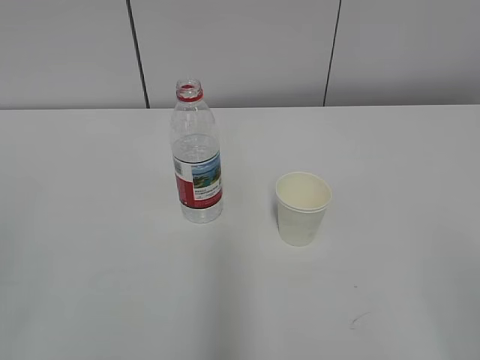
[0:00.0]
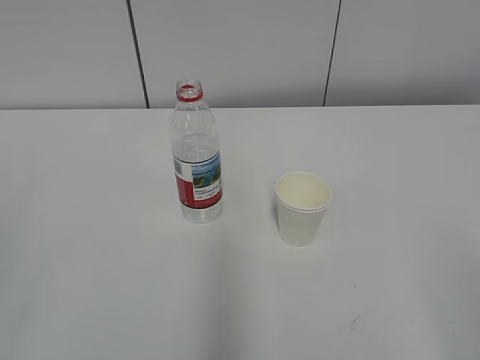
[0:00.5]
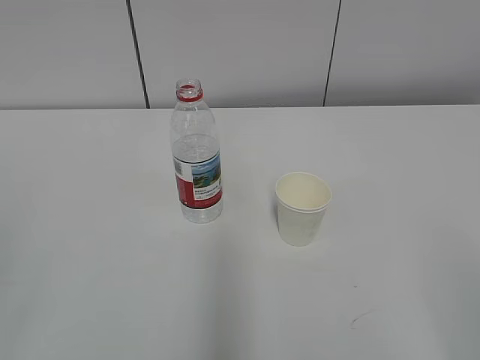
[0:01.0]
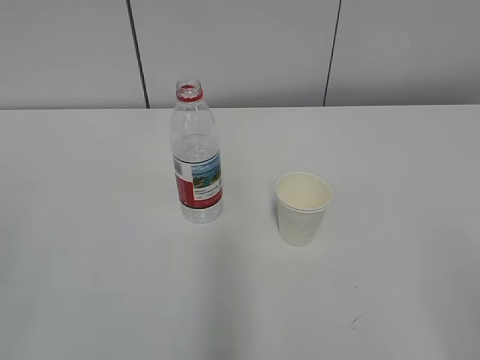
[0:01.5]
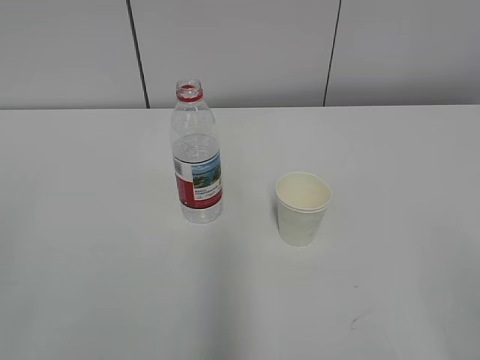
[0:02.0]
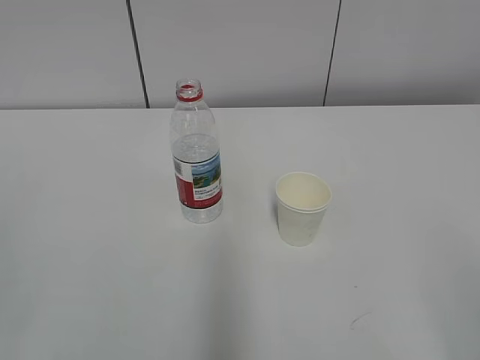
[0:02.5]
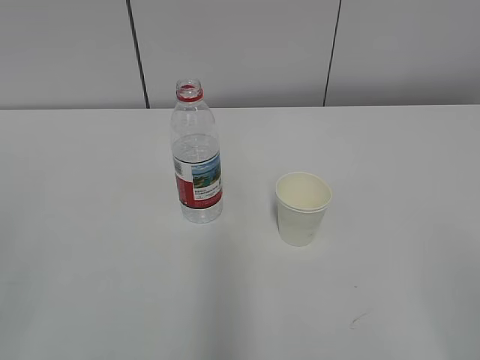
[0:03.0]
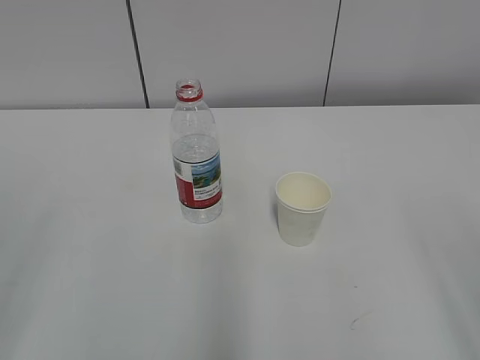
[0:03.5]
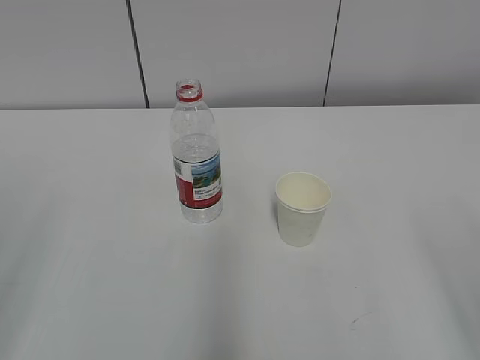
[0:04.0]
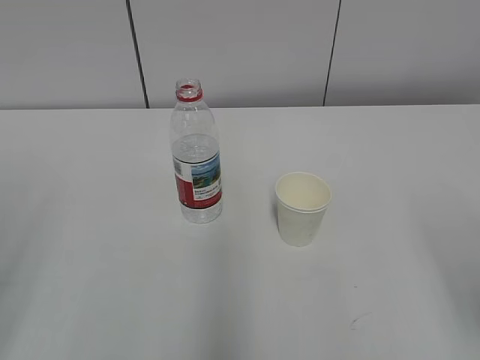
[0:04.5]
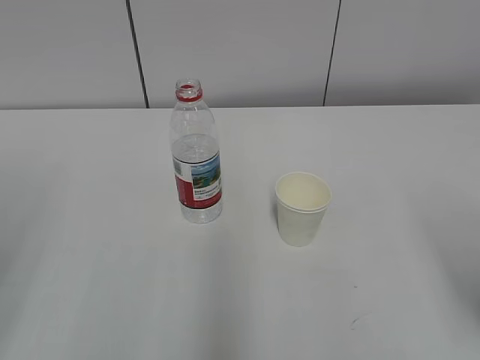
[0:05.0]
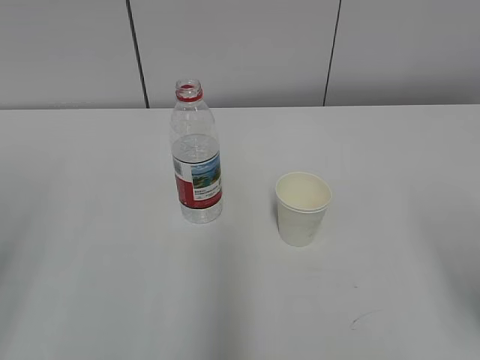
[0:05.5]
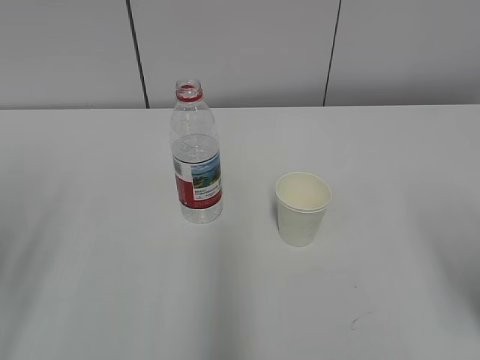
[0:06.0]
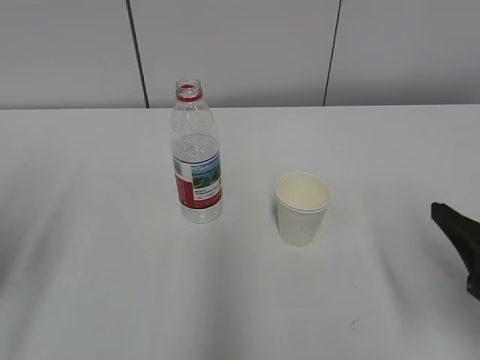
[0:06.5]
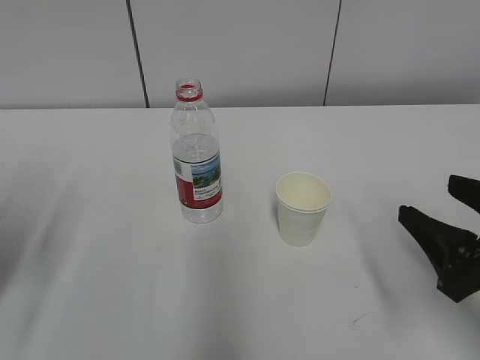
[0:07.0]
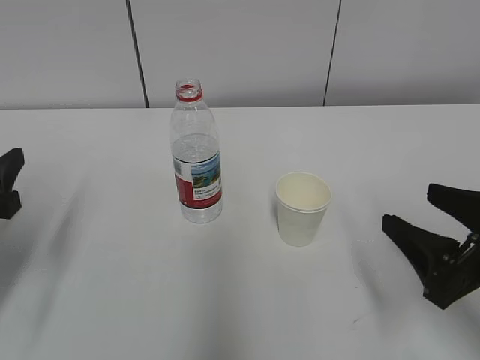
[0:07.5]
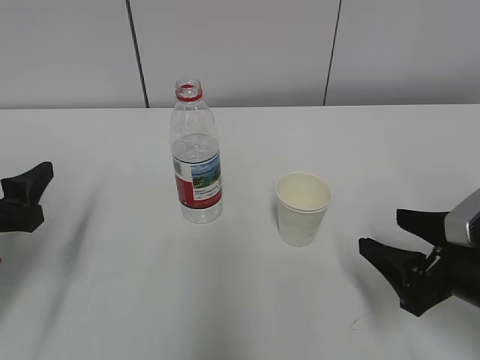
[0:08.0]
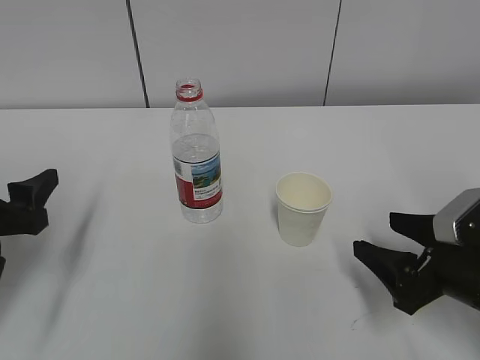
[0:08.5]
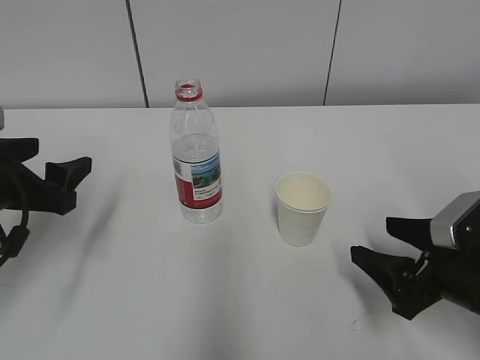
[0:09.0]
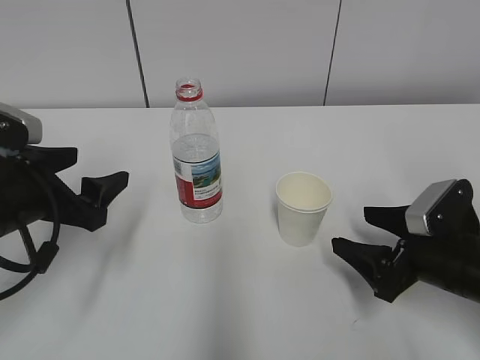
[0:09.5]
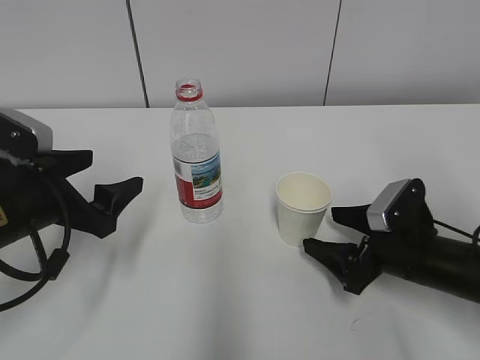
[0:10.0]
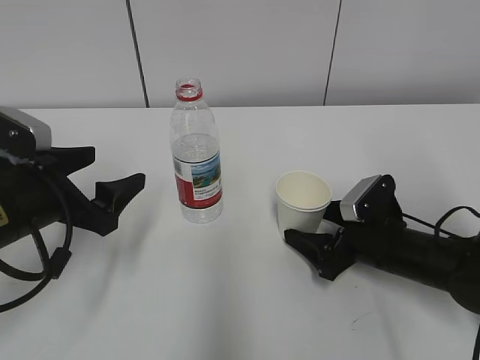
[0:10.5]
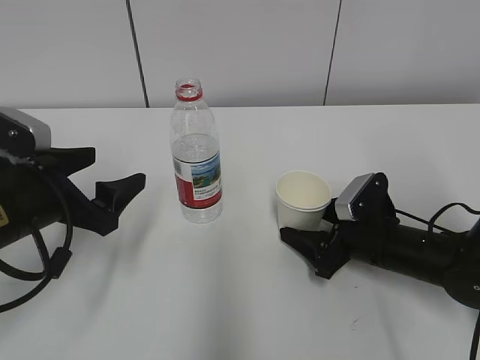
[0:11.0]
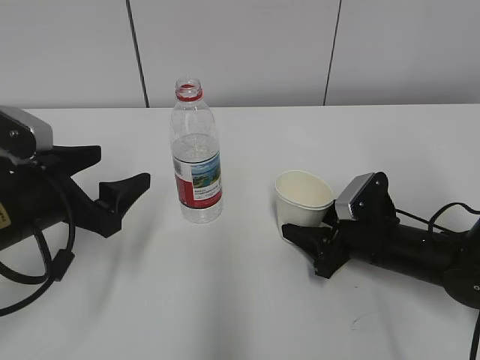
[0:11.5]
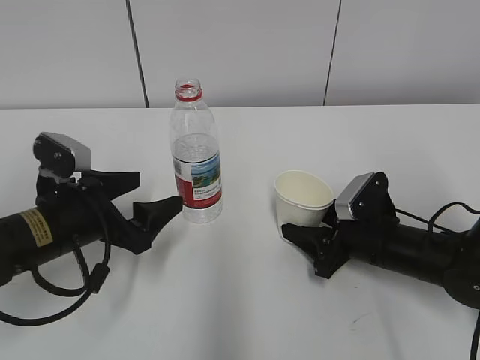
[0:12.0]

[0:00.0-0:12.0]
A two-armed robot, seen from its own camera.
Step, 0:00.0 to 0:11.5: Grab the paper cup with the right hand.
0:06.0 to 0:08.0: The grippers both shift downward and forward by about 10 cm.
0:08.0 to 0:10.0: The right gripper shifts approximately 10 cm forward and downward; the left gripper heads to the right, covering roughly 5 cm.
0:10.0 to 0:12.0: The right gripper closes its fingers.

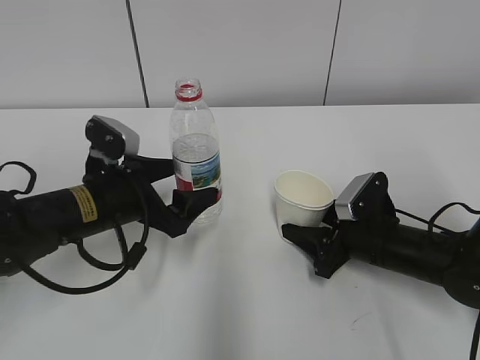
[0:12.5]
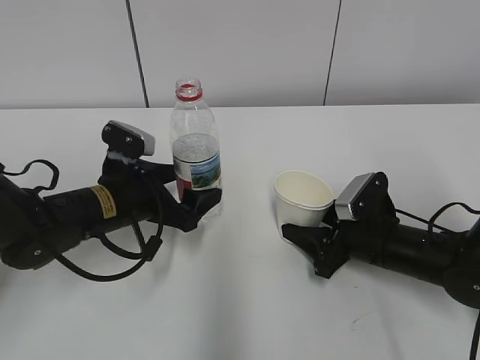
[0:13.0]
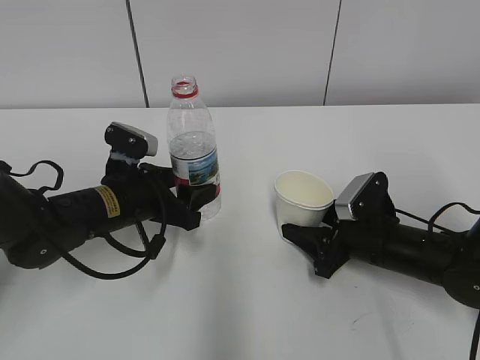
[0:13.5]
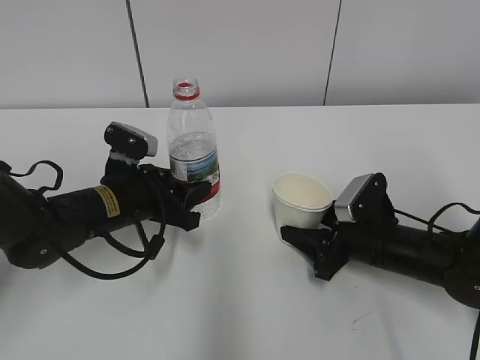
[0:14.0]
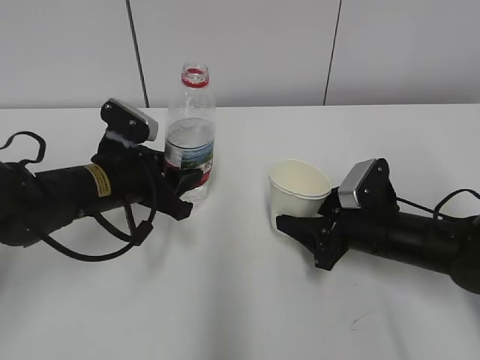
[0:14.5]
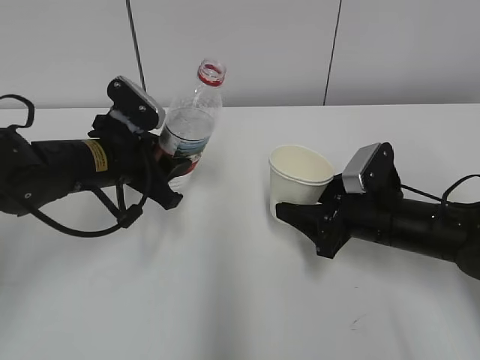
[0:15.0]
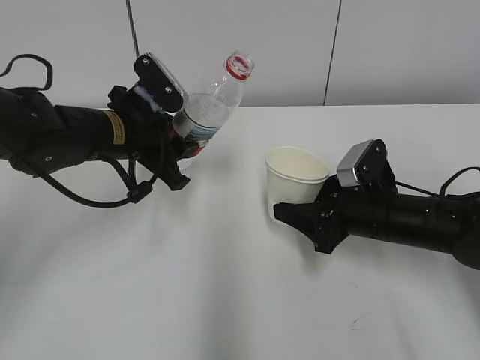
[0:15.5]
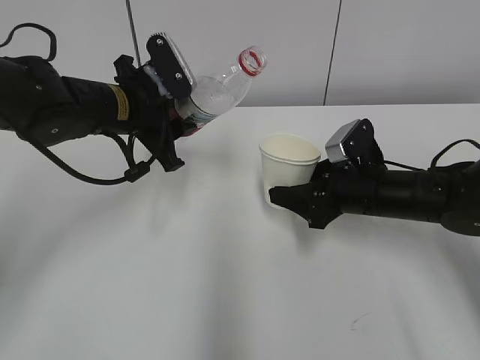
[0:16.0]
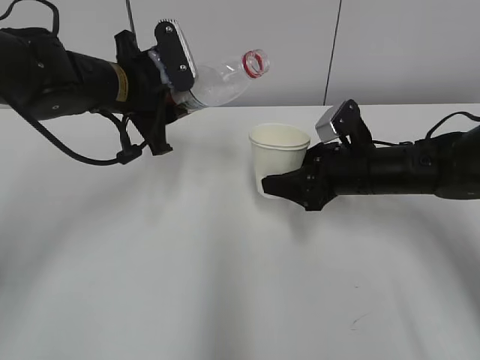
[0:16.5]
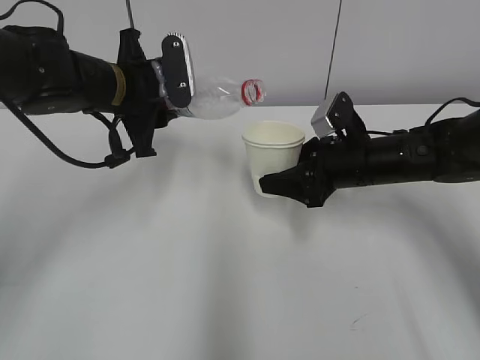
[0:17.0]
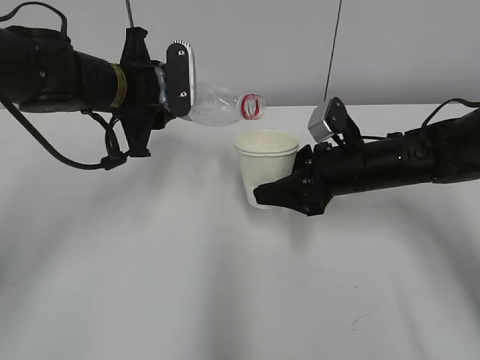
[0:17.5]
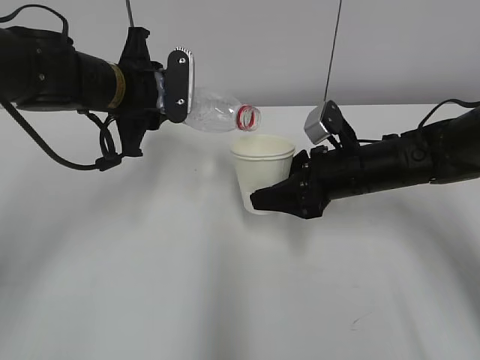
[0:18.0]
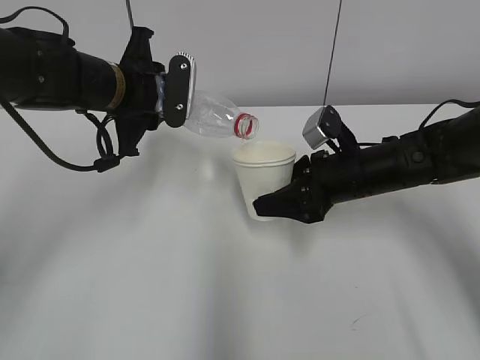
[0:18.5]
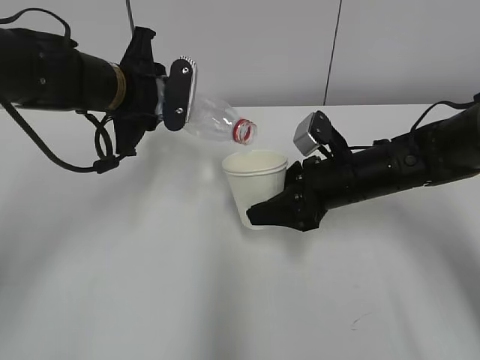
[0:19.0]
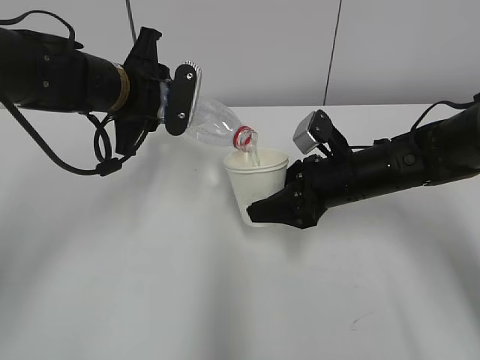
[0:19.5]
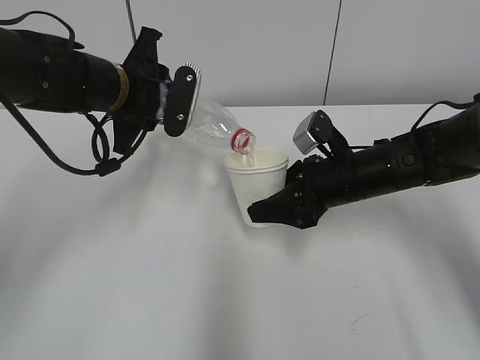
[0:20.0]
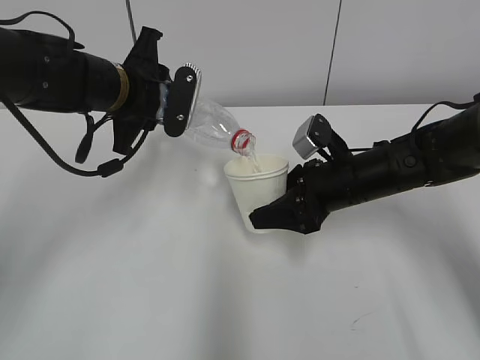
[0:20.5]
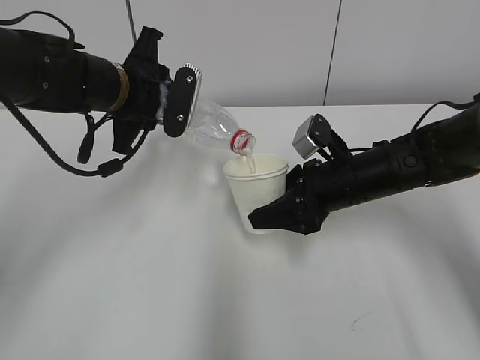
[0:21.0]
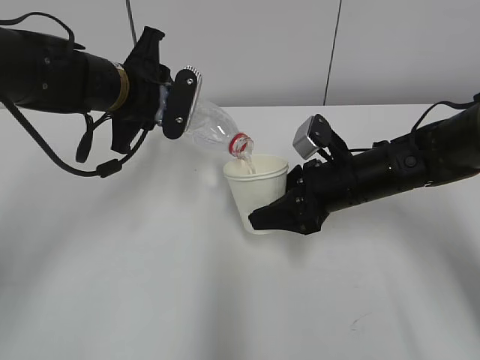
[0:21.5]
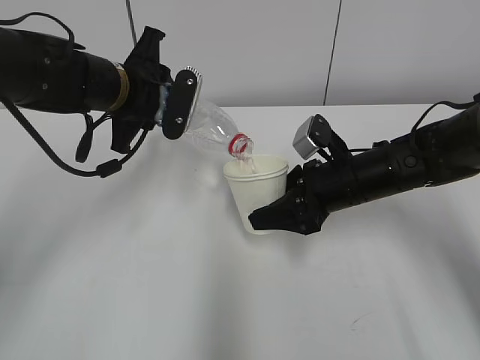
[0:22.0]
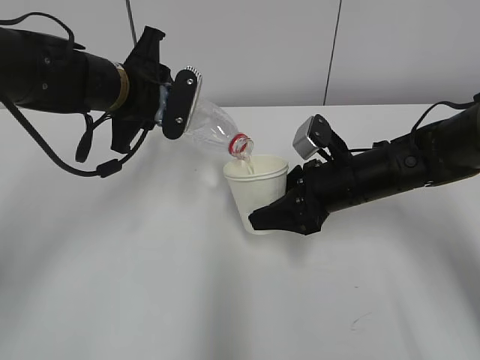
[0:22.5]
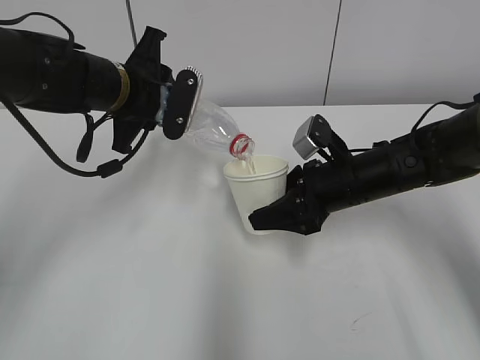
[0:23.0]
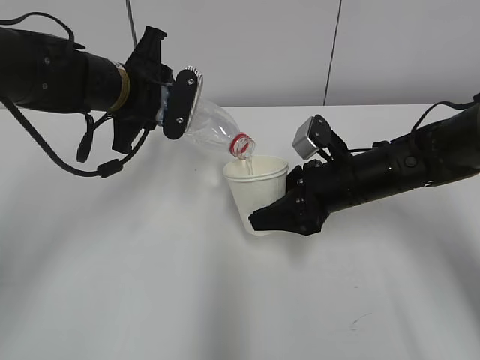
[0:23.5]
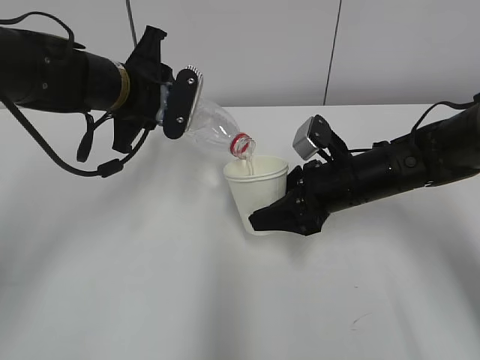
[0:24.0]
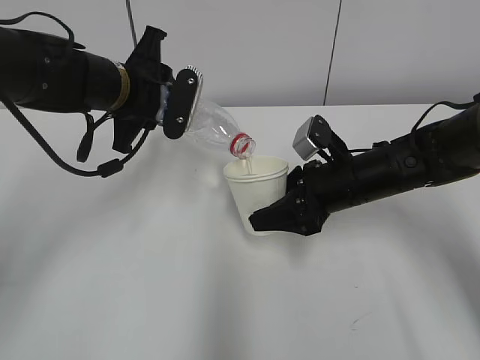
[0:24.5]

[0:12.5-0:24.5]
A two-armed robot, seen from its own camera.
Step, 0:12.5 to 0:15.5: Lift the paper cup with the right hand.
Step, 0:16.0 to 0:23.0: Fill water with the right hand.
Step, 0:16.0 to 0:23.0: Pour water with the left hand.
0:12.5 to 0:14.5: The left gripper closes its fingers.
0:14.5 to 0:16.5: The left gripper travels upward and forward by about 10 cm, while the right gripper is displaced forward and upward by roughly 10 cm.
0:18.5 to 0:20.5: The grippers stay close to where they were, moving slightly.
0:20.5 to 0:24.5: Both grippers stay put.

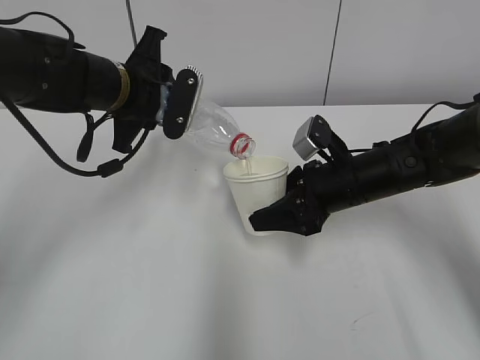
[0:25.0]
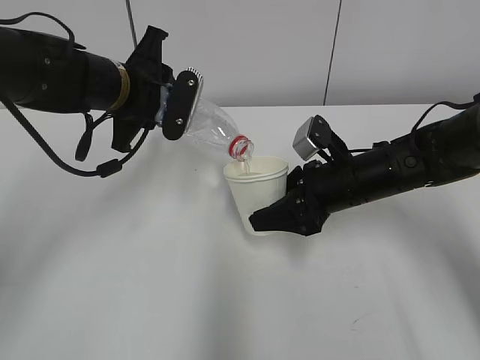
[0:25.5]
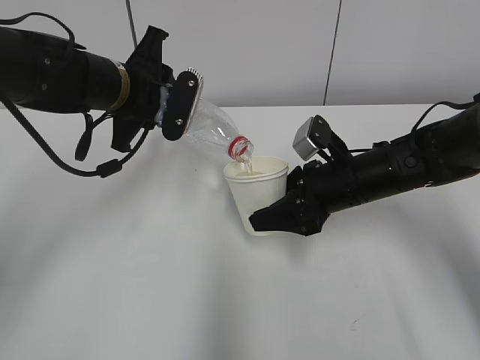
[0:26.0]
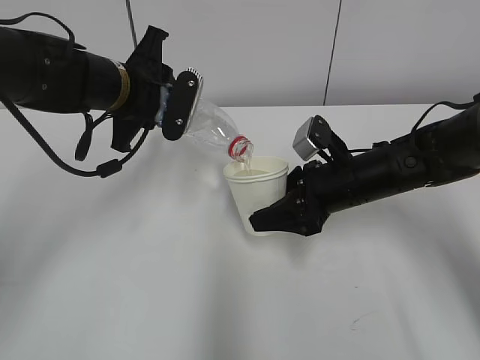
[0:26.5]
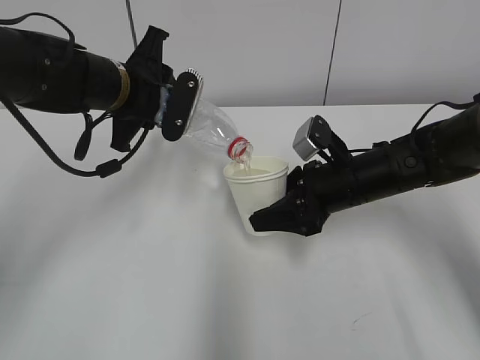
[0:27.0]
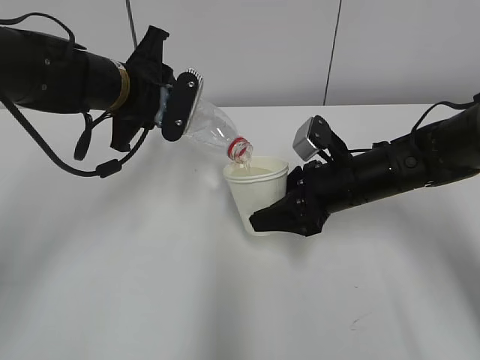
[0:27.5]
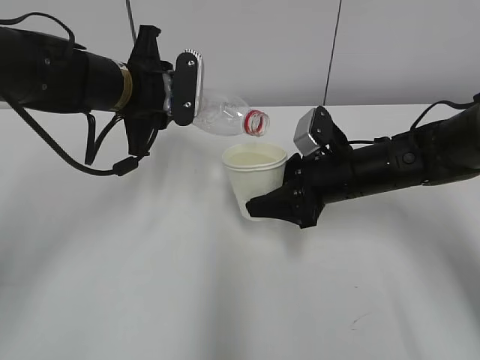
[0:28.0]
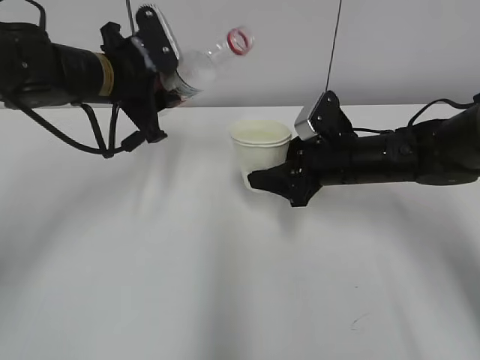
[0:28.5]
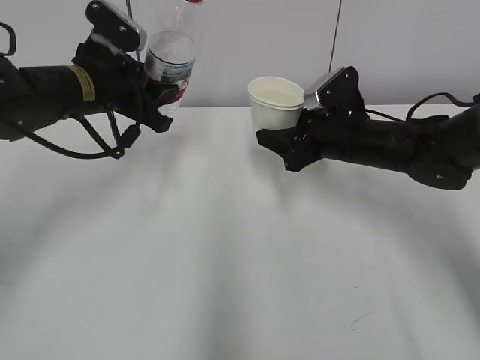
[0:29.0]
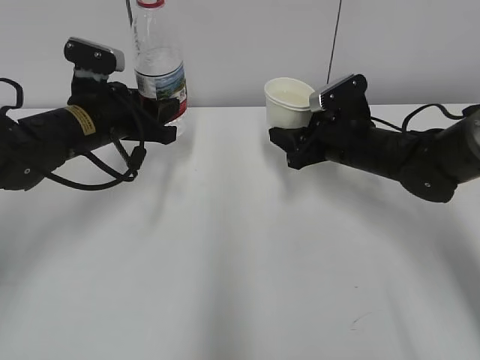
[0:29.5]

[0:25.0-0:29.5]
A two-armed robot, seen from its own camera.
0:25.0 to 0:27.0: The two grippers keep their place.
0:27.0 to 0:29.5: The right gripper moves forward, approximately 5 cm; the left gripper ends up some 5 cm from where it was.
